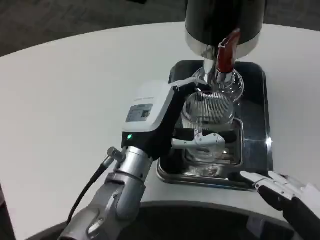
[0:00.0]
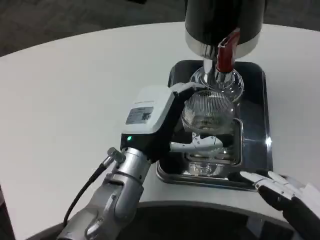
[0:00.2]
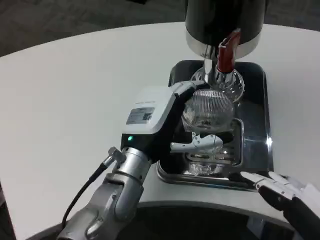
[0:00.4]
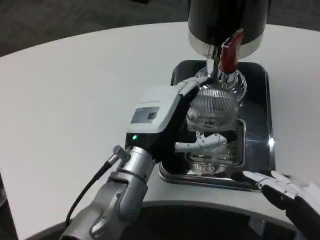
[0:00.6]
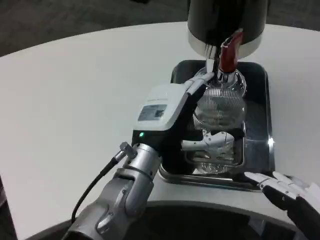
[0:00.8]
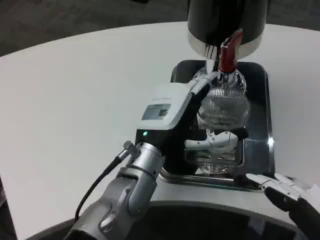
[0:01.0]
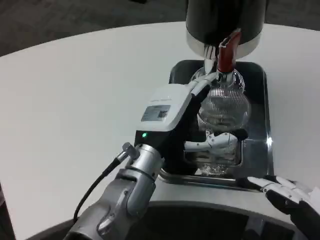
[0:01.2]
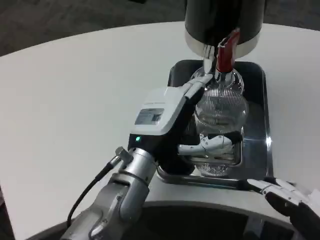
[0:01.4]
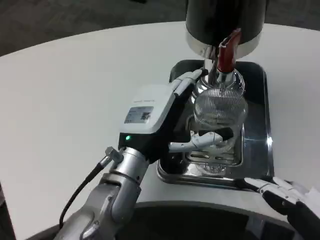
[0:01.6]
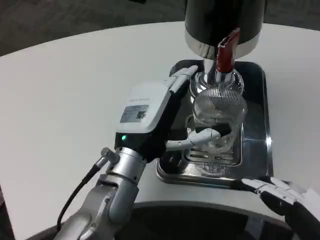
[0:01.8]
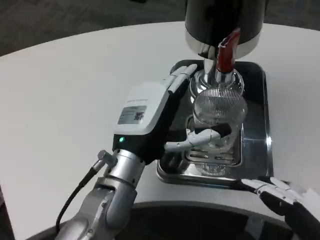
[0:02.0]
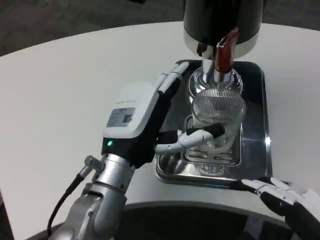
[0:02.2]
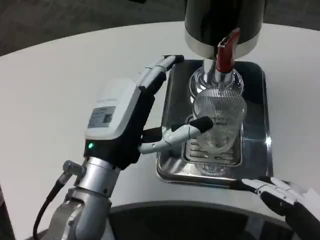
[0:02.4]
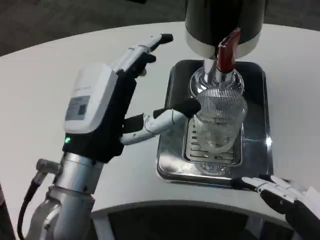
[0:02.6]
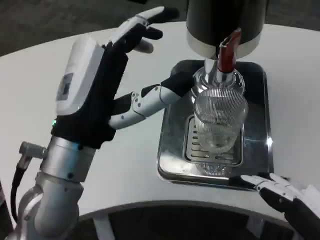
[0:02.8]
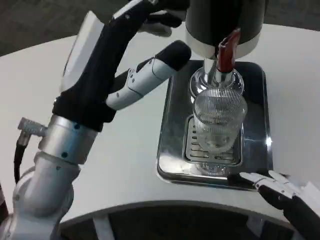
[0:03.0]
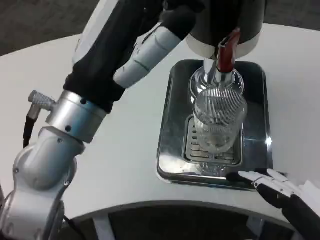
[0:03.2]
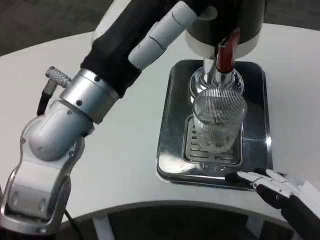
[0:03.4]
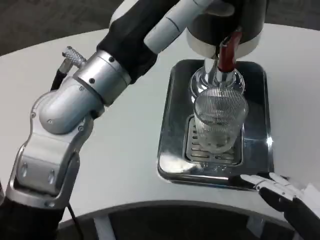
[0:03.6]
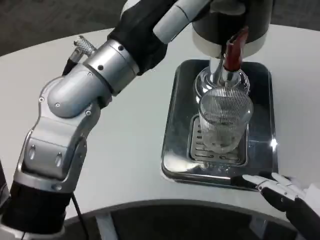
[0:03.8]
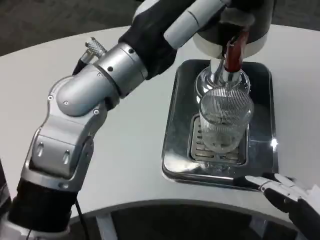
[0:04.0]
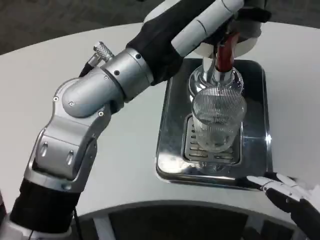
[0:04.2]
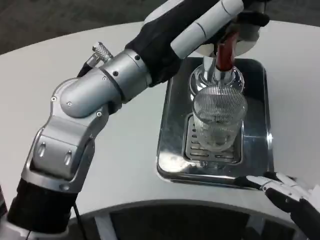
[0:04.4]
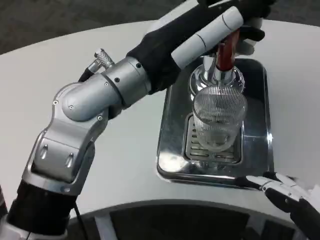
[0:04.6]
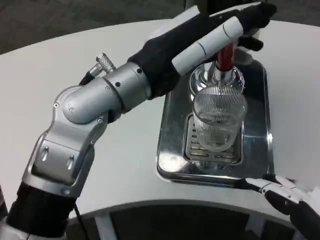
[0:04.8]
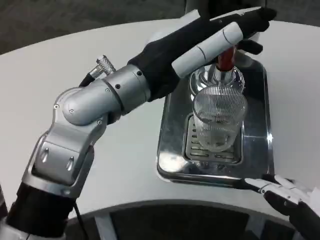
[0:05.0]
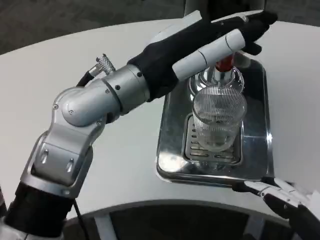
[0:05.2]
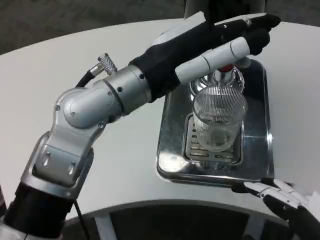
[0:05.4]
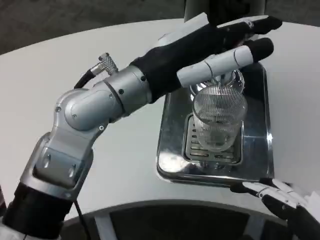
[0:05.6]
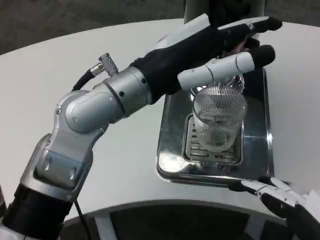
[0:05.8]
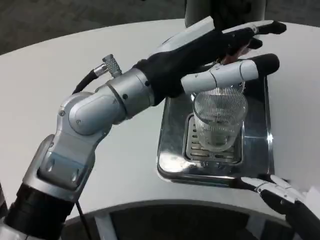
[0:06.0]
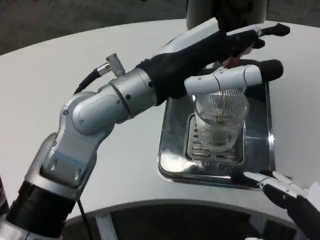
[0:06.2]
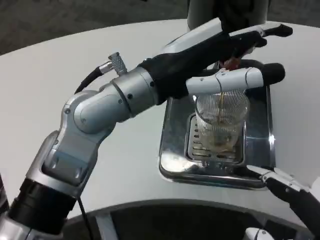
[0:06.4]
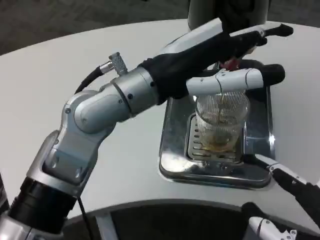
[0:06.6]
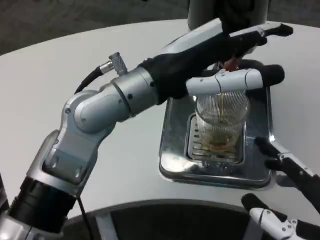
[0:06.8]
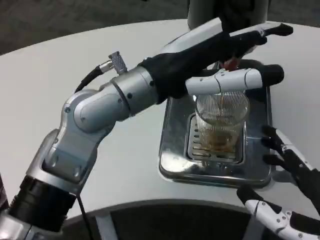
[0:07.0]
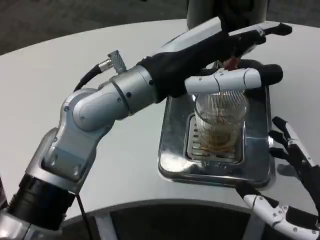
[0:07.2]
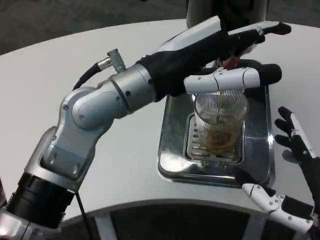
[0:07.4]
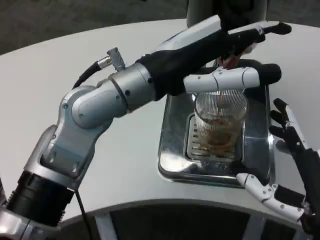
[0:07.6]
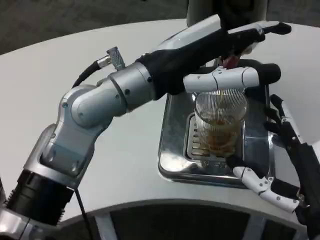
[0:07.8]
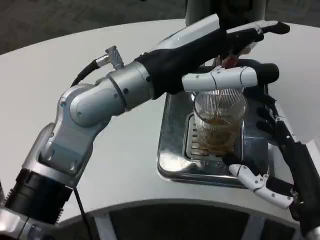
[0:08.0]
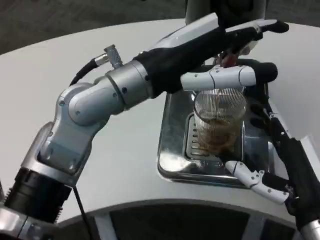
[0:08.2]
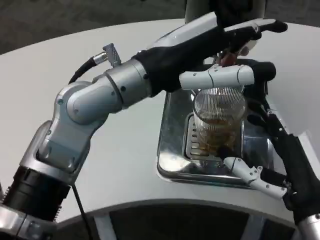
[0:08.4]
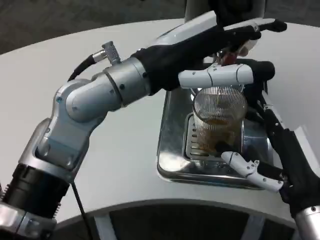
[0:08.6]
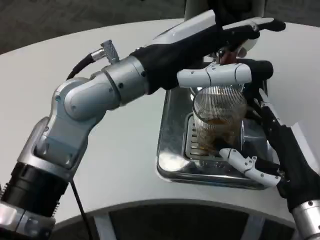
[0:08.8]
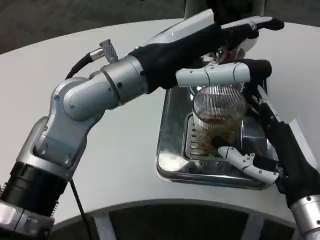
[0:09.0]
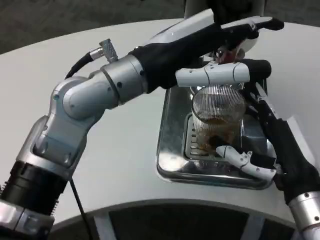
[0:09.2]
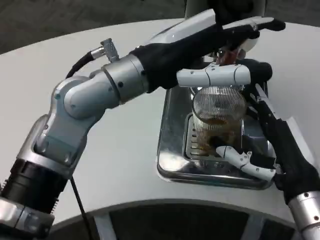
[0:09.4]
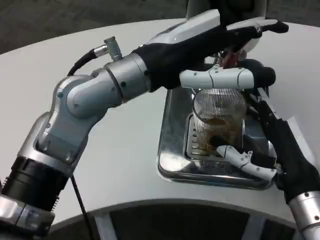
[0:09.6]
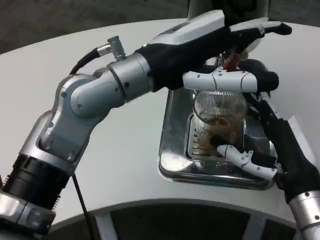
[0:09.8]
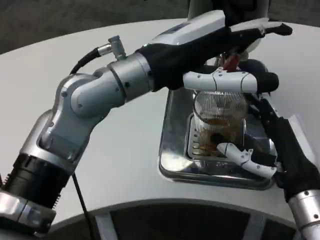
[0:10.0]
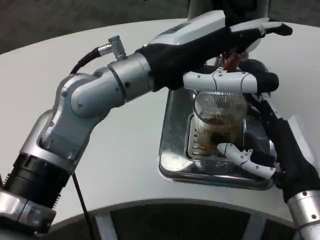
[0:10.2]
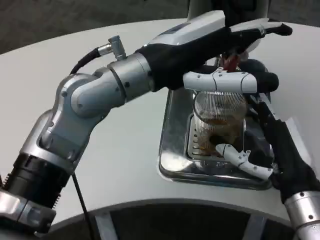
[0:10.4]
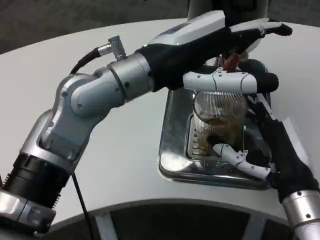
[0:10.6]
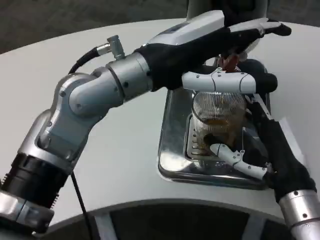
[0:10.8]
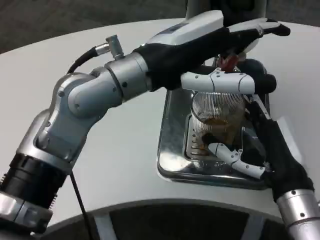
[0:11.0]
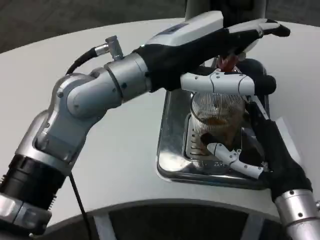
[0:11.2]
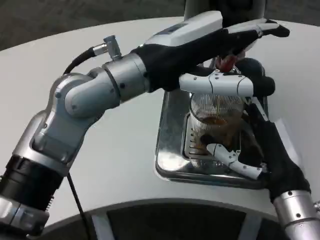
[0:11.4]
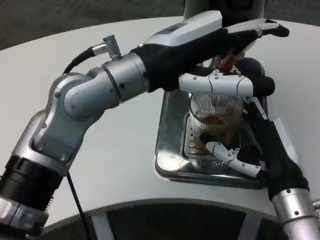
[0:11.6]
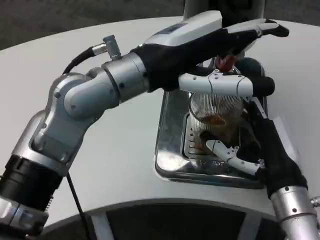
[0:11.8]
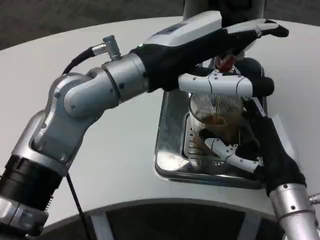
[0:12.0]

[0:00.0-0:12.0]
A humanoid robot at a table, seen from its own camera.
Task of the whole recording: Grasp the cup under the faucet to collect the drink, then remove the cup.
0:00.0 to 0:01.6: The hands make only small movements.
0:01.6 to 0:03.0: The left hand is displaced upward, backward and to the left by roughly 15 cm.
0:03.0 to 0:04.4: The left hand travels upward and forward by approximately 10 cm.
0:06.0 to 0:07.6: The right hand heads forward, covering some 5 cm.
0:07.6 to 0:09.0: The right hand travels forward by approximately 5 cm.

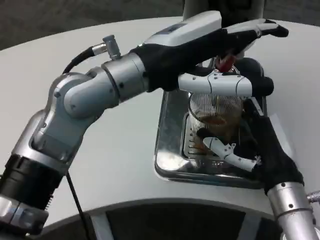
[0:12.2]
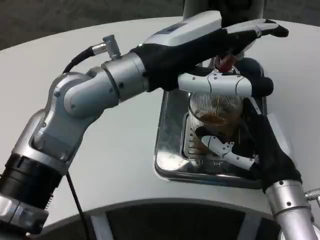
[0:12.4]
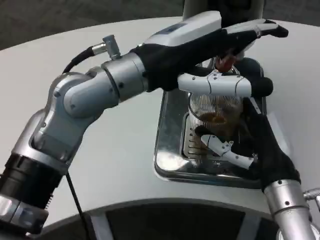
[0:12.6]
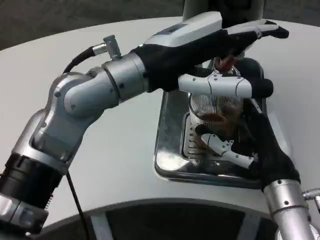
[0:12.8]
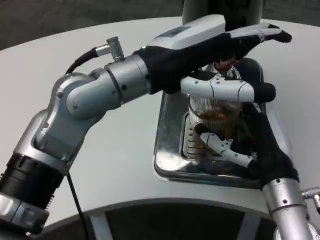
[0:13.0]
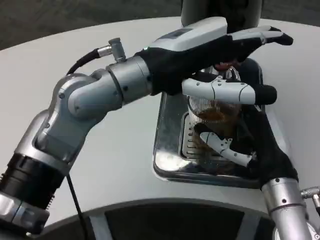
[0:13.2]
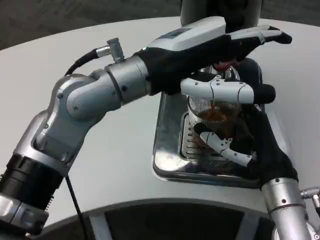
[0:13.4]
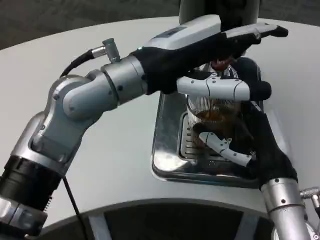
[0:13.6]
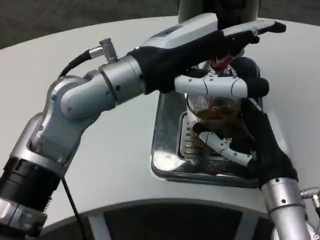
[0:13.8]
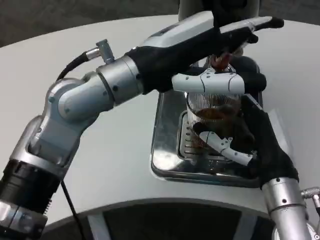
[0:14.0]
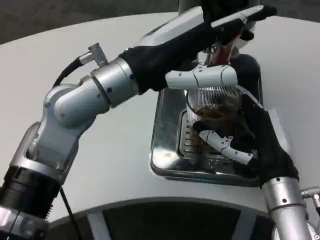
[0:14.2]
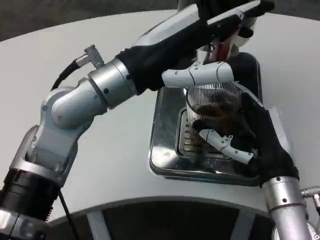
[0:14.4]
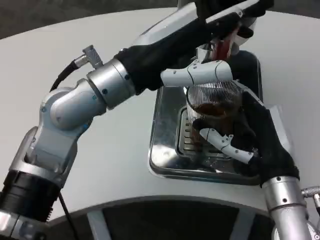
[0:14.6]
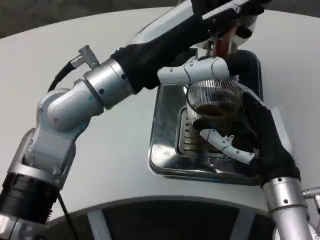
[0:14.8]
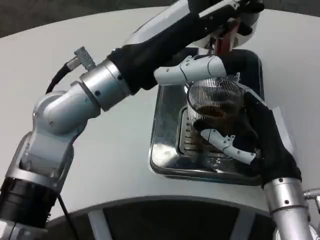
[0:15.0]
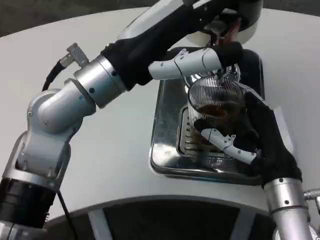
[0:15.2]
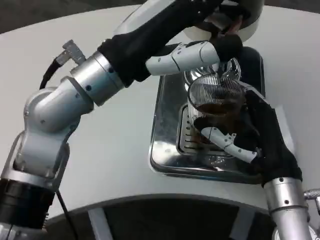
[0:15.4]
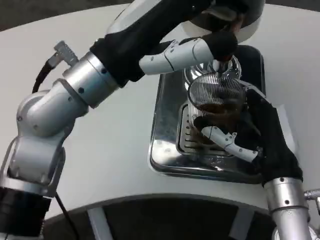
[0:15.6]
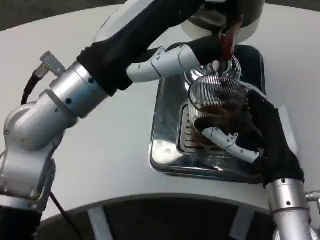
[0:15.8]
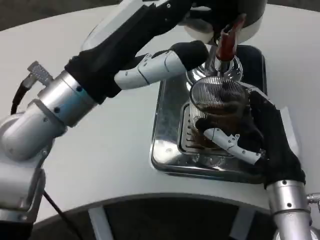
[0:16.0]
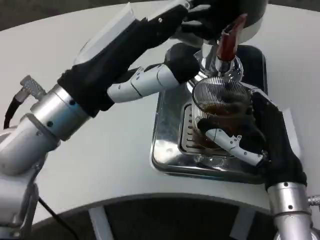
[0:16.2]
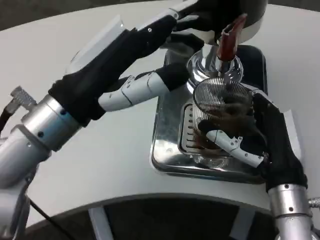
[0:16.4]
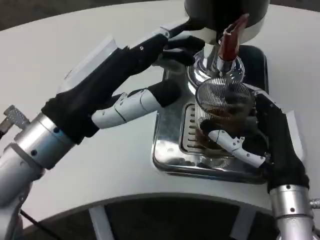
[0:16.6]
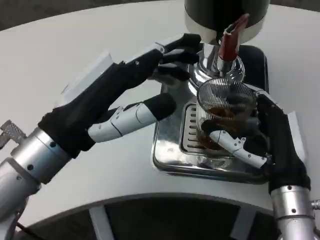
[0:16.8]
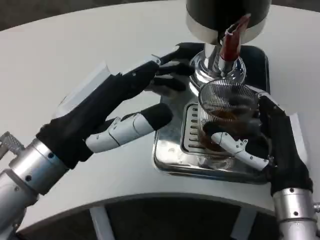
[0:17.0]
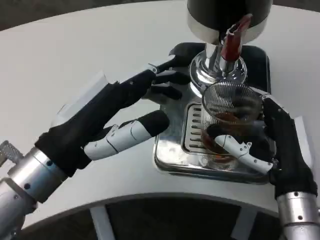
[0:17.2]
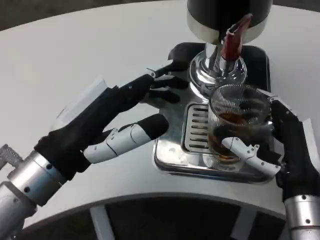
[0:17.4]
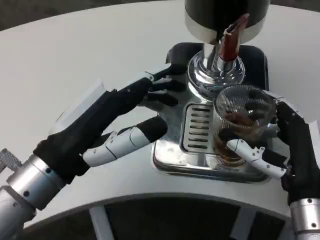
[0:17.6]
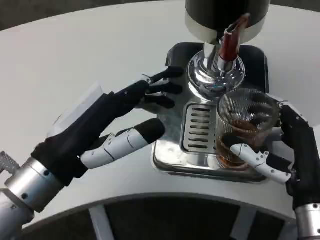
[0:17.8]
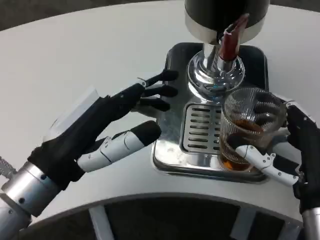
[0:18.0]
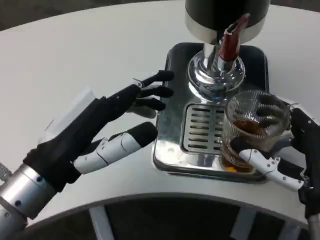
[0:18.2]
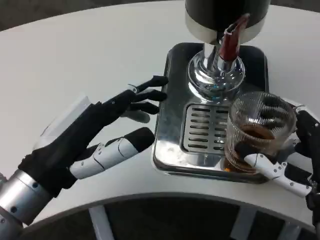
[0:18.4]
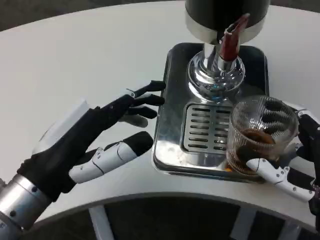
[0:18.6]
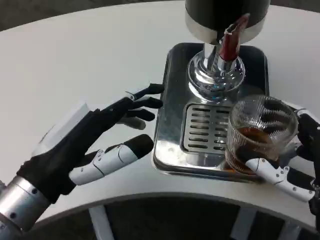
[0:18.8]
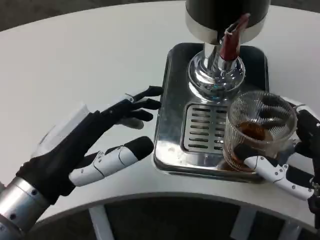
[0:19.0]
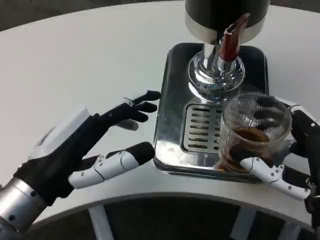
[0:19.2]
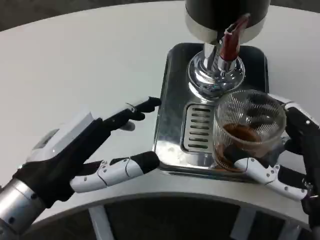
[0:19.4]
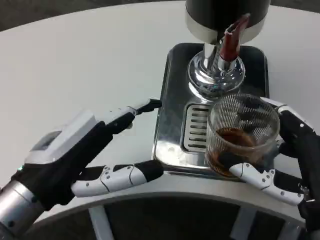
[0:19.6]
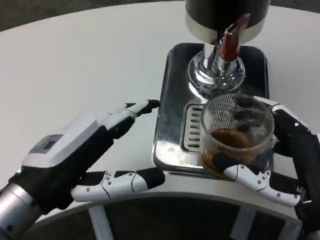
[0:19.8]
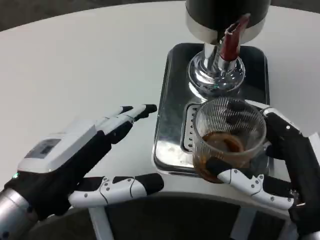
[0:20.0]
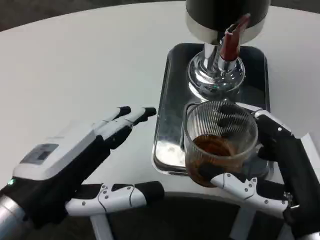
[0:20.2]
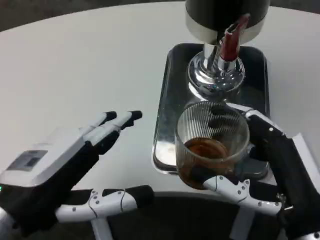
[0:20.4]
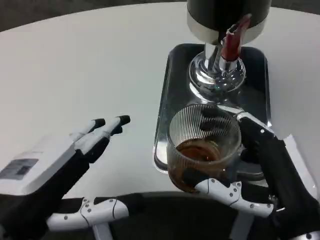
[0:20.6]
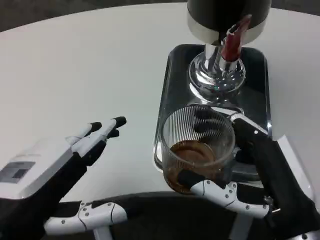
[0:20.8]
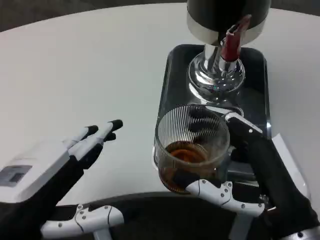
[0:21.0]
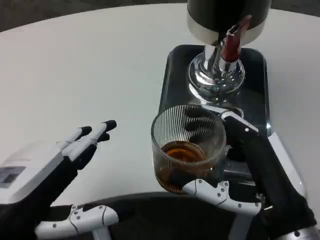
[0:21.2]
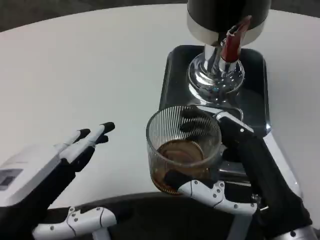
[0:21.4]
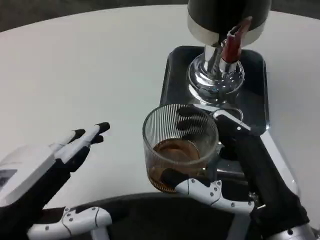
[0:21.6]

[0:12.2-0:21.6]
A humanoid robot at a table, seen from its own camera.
Task of the whole recording: Grasp the cup under the faucet to collect the drink, then remove the cup.
0:12.2 to 0:13.8: Neither hand changes place.
0:15.4 to 0:17.0: The left hand shifts approximately 10 cm backward, downward and to the left.
0:17.0 to 0:18.4: The right hand goes approximately 5 cm backward.
0:20.0 to 0:21.6: The left hand ends up roughly 5 cm from where it was.

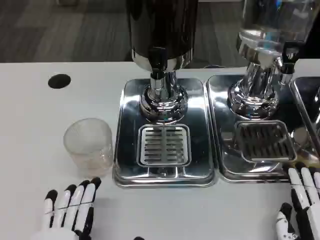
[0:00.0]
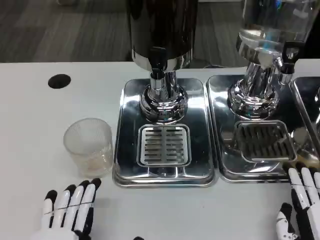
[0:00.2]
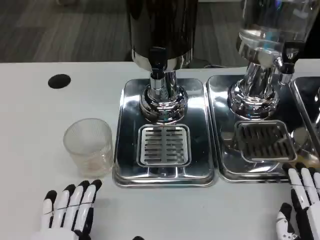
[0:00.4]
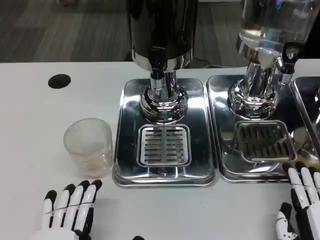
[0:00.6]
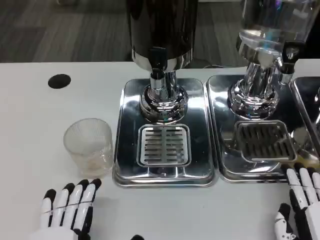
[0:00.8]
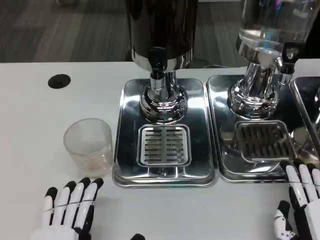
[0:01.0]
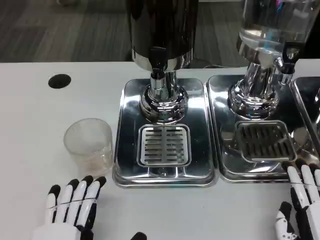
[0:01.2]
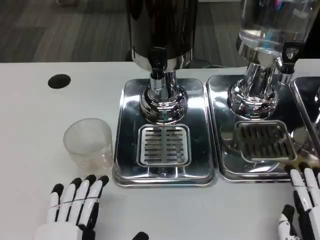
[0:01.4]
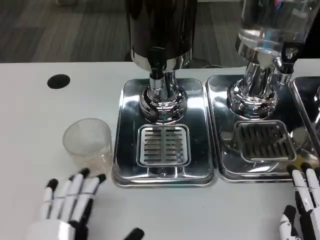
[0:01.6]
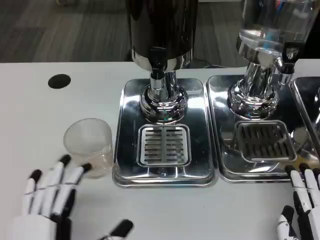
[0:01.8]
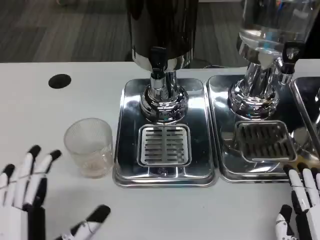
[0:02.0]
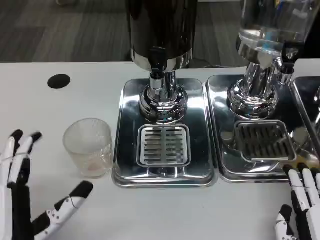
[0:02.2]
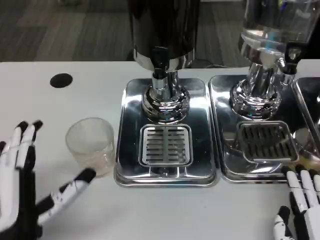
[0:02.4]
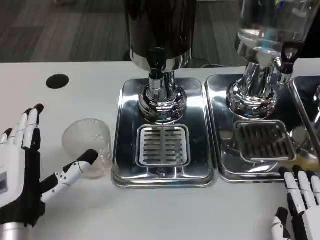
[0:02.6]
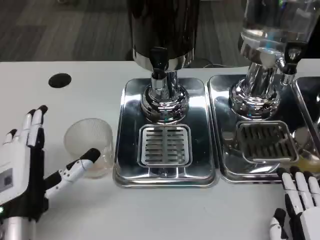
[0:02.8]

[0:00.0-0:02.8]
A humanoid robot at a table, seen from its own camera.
Task of the whole recording: Grasp the cup under the faucet to collect the drink, then remove the cup.
0:00.0 to 0:01.4: Both hands stay put.
0:01.4 to 0:02.8: The left hand travels forward and to the left by some 10 cm.
